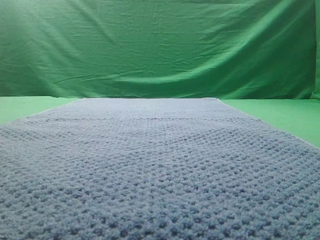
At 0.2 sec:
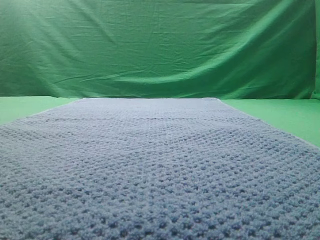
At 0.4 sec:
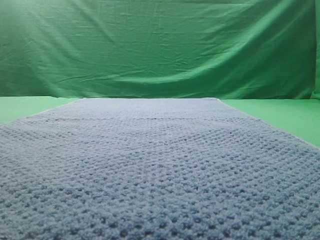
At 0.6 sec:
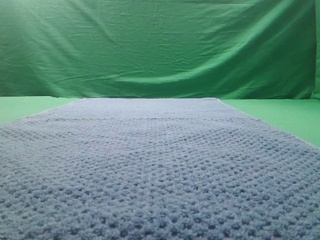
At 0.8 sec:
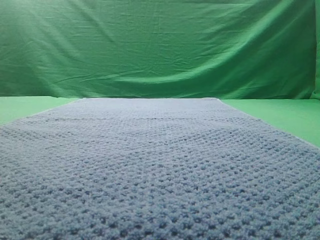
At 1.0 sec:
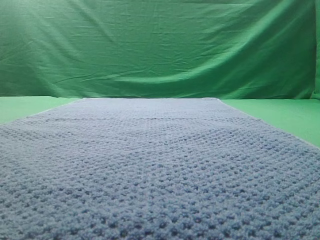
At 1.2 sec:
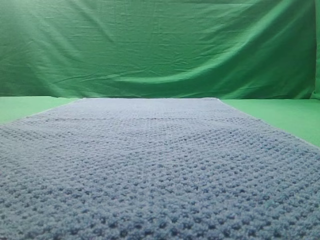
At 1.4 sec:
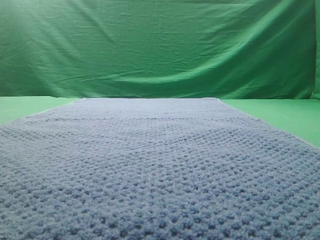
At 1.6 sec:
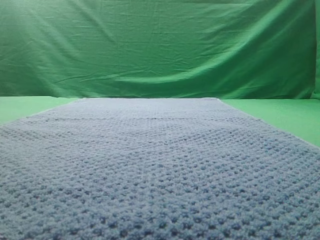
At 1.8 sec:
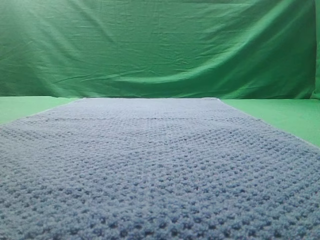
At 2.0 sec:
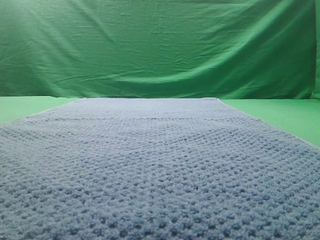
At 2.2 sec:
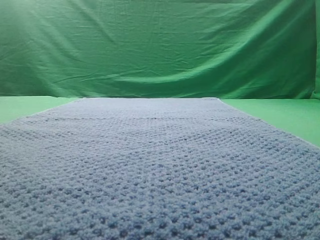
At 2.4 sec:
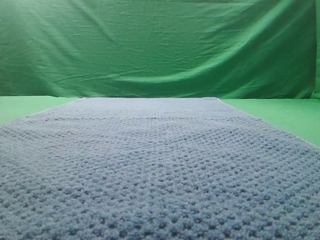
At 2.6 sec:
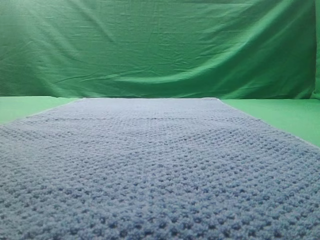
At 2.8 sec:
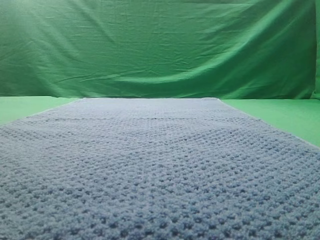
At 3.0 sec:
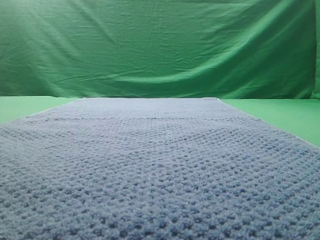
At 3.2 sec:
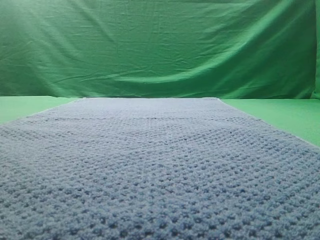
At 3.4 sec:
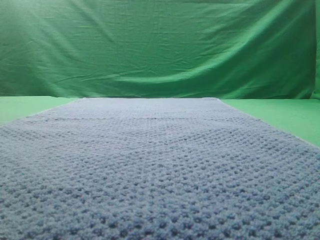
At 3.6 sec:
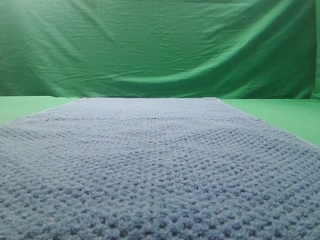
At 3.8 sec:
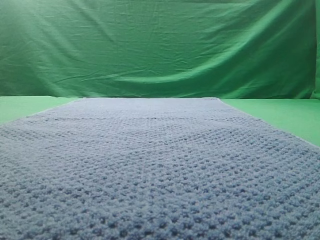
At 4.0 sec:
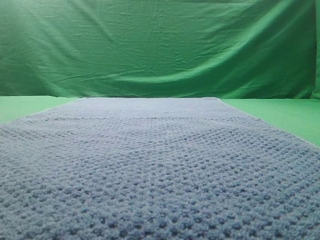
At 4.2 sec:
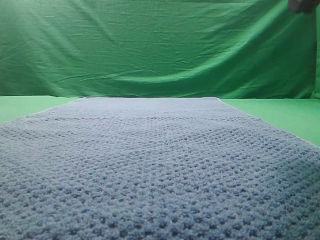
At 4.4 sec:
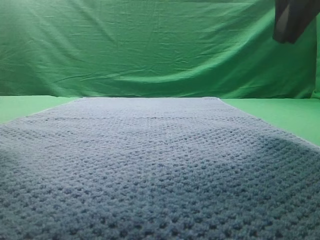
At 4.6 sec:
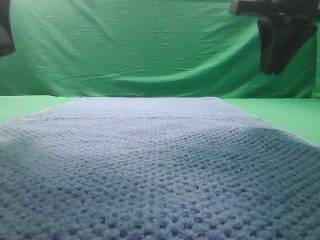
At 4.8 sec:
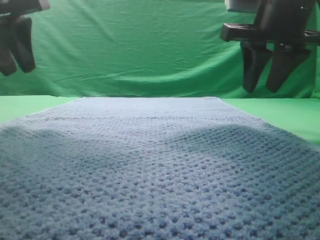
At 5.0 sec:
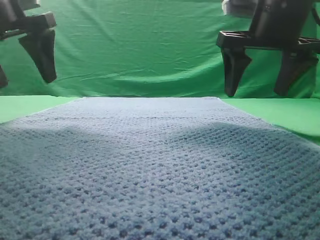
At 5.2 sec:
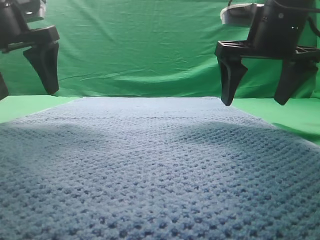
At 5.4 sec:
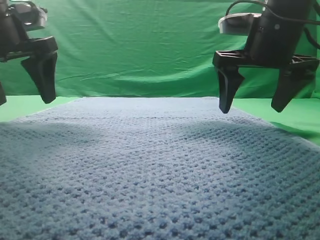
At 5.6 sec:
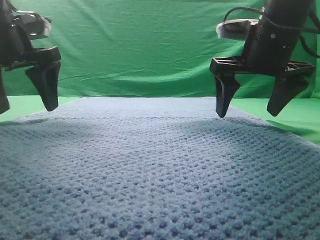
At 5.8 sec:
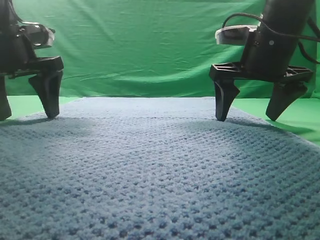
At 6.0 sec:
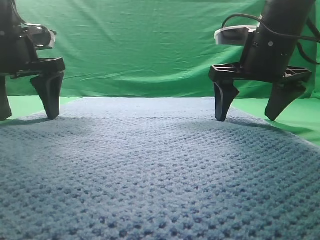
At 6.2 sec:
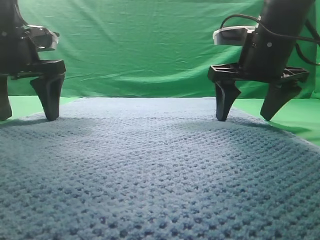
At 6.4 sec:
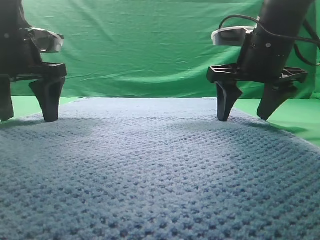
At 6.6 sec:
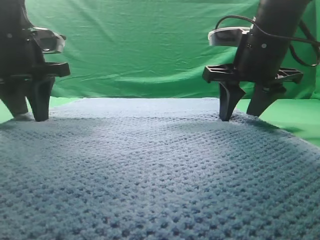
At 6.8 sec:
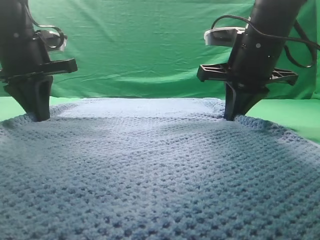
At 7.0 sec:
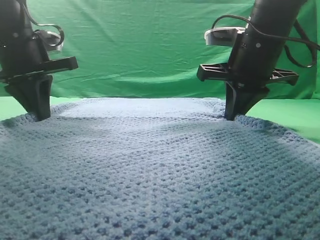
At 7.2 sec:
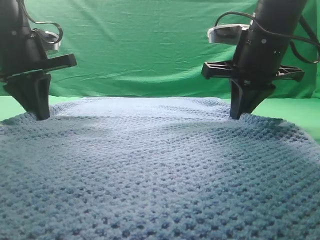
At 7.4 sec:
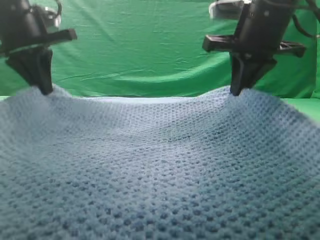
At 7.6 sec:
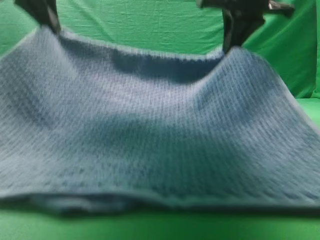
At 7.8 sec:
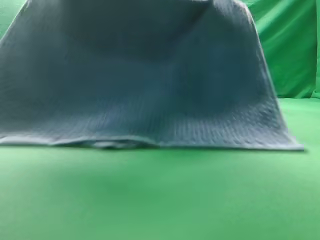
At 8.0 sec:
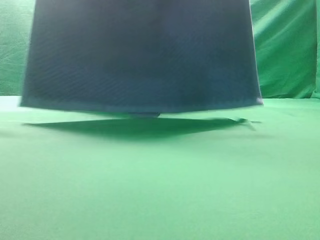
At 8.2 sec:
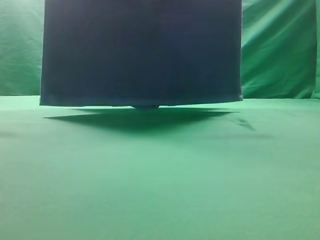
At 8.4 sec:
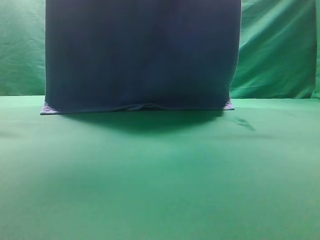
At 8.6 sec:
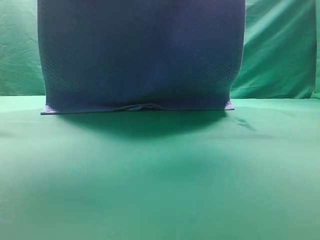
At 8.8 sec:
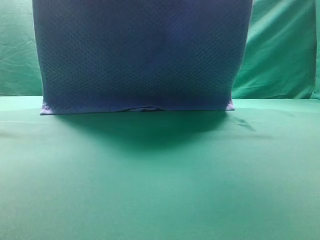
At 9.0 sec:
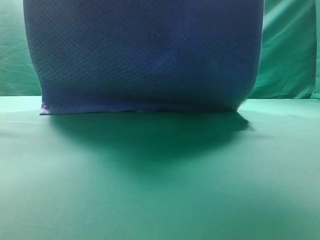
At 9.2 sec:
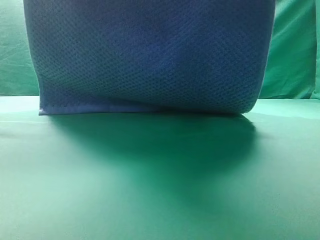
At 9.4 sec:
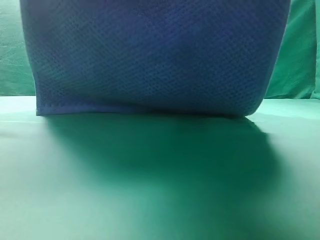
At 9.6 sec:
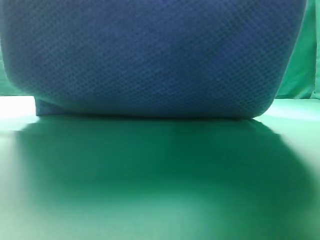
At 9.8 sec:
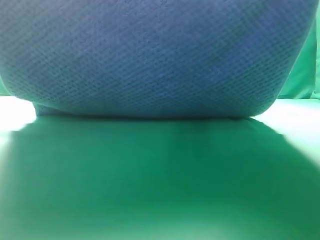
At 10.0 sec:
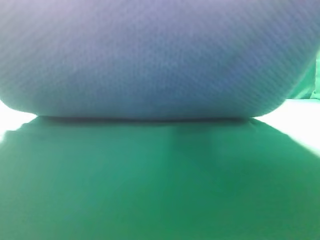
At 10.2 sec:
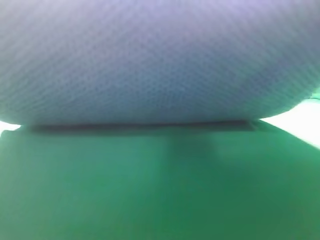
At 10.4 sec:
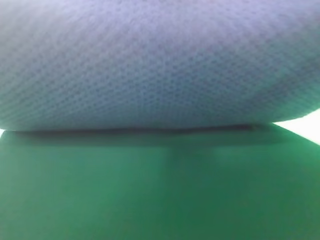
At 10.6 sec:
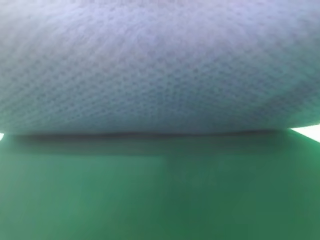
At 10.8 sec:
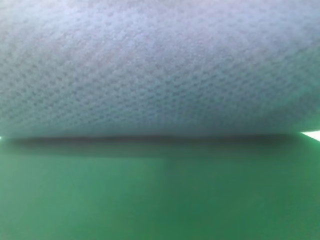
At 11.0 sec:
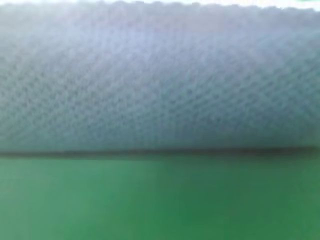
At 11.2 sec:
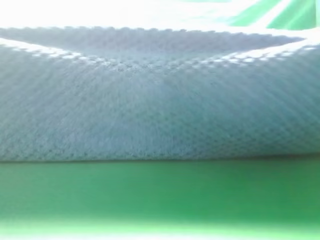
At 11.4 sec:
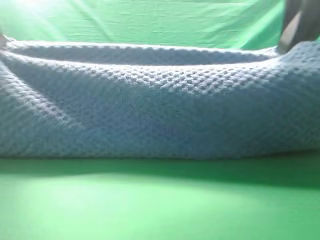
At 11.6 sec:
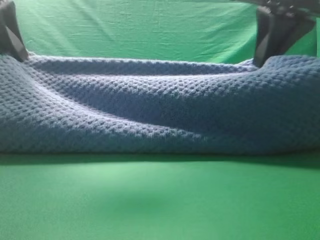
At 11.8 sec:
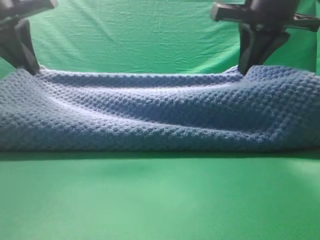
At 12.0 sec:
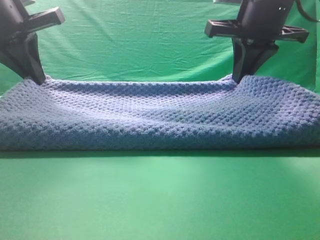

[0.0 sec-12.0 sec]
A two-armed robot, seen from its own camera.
Task of the whole recording: fold the towel on the table twice.
Step, 0.0 sec to 7.8 sec: pick up the towel with two arm.
